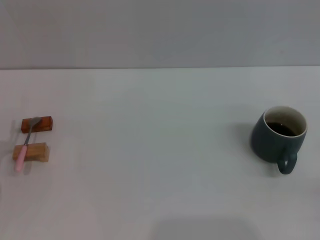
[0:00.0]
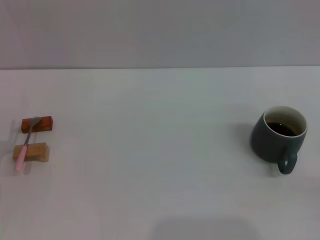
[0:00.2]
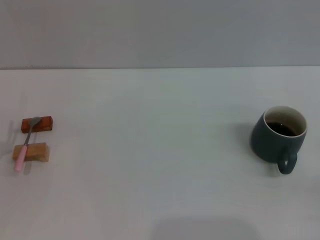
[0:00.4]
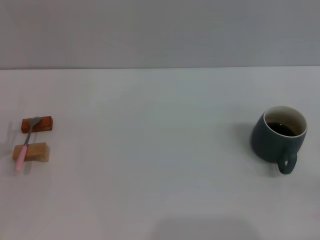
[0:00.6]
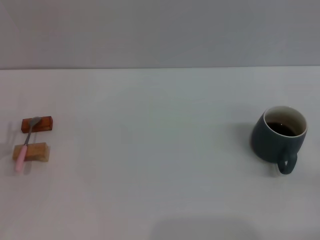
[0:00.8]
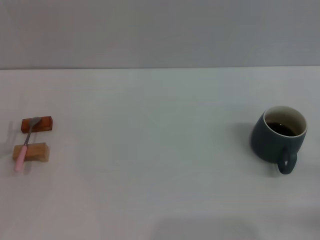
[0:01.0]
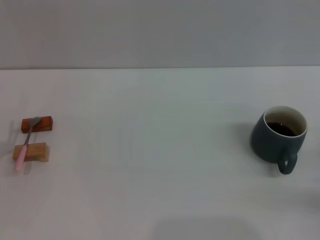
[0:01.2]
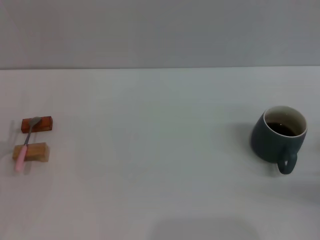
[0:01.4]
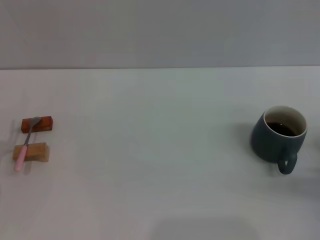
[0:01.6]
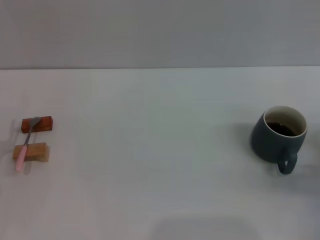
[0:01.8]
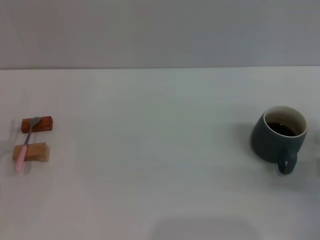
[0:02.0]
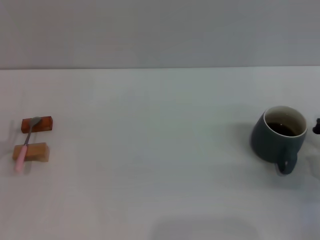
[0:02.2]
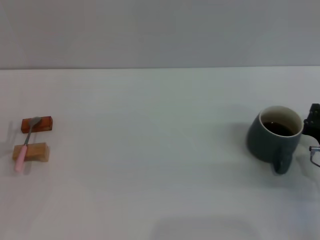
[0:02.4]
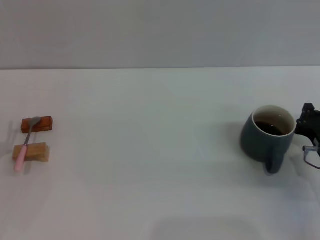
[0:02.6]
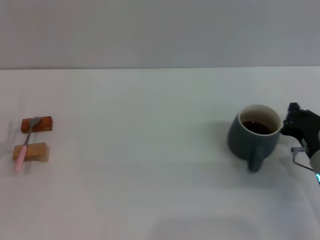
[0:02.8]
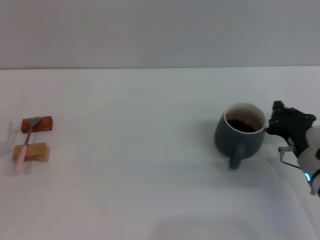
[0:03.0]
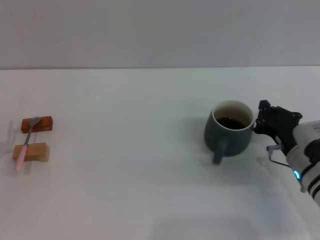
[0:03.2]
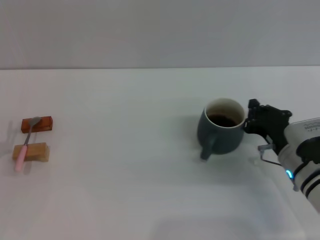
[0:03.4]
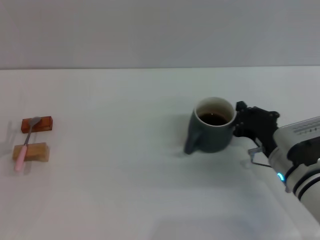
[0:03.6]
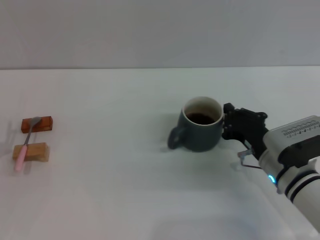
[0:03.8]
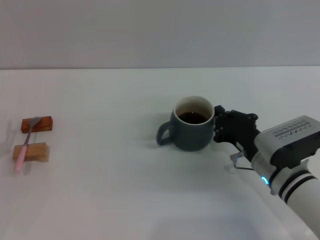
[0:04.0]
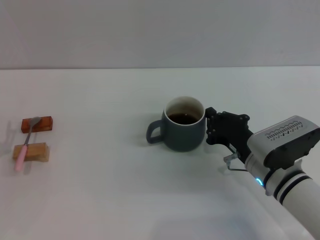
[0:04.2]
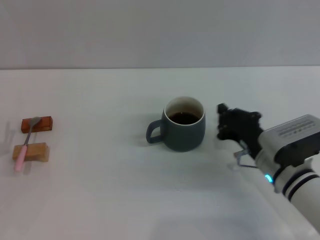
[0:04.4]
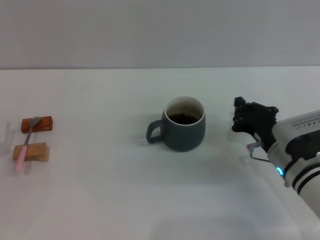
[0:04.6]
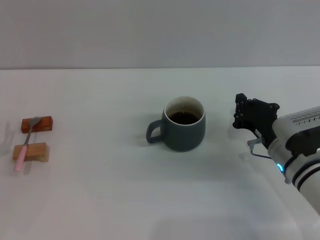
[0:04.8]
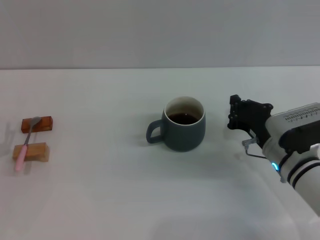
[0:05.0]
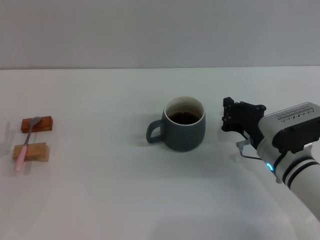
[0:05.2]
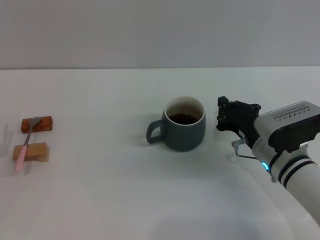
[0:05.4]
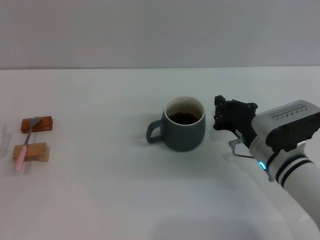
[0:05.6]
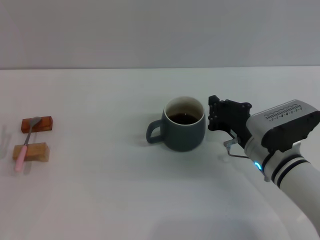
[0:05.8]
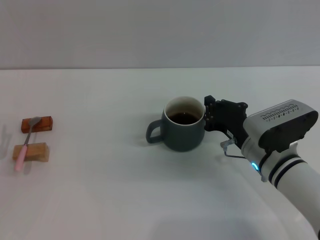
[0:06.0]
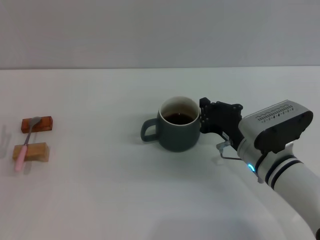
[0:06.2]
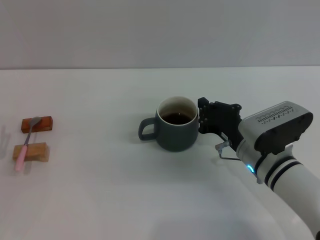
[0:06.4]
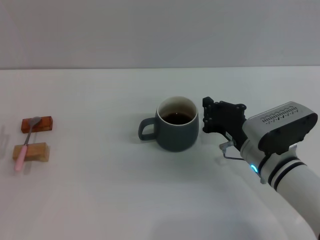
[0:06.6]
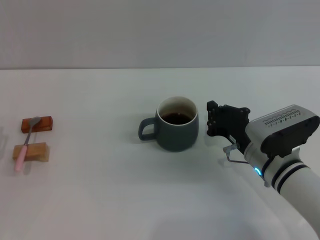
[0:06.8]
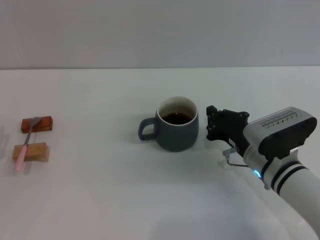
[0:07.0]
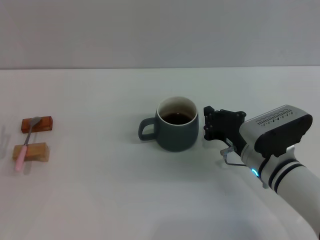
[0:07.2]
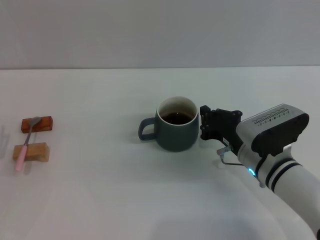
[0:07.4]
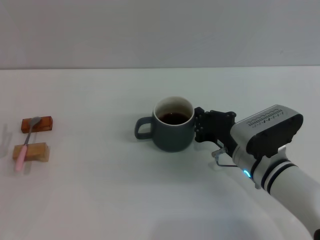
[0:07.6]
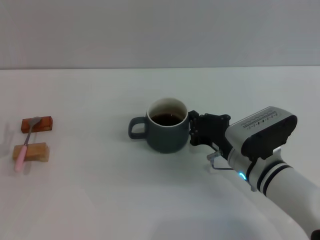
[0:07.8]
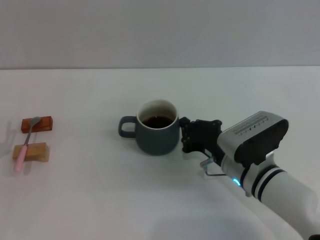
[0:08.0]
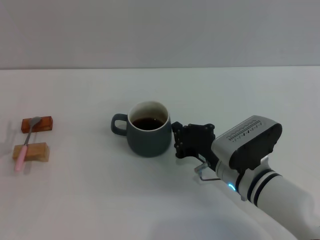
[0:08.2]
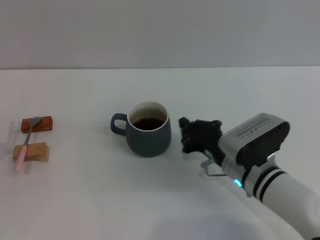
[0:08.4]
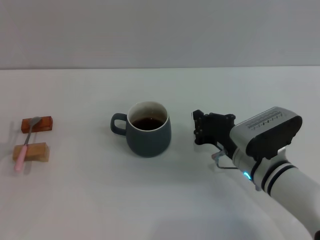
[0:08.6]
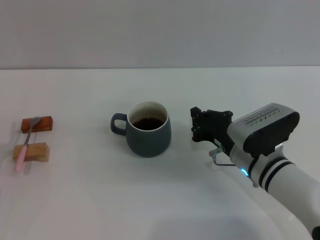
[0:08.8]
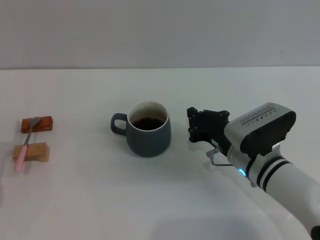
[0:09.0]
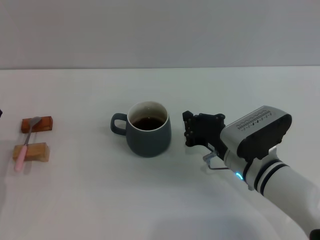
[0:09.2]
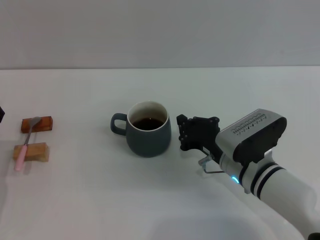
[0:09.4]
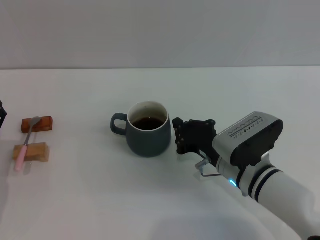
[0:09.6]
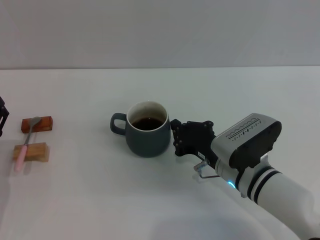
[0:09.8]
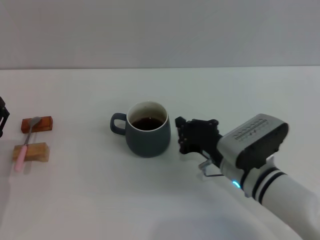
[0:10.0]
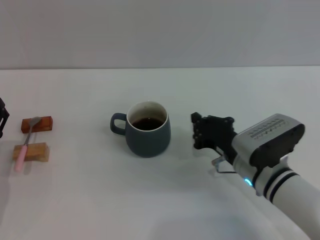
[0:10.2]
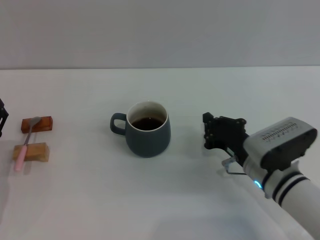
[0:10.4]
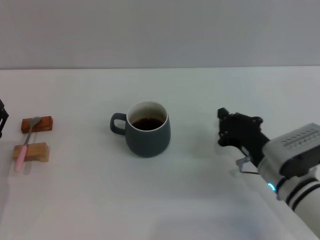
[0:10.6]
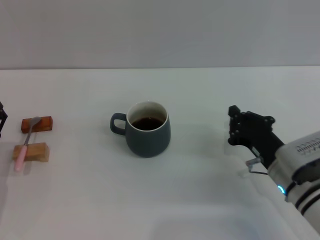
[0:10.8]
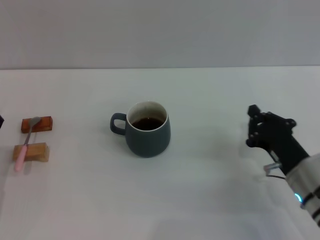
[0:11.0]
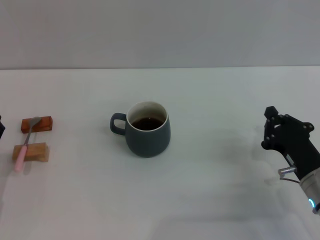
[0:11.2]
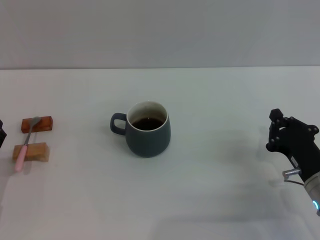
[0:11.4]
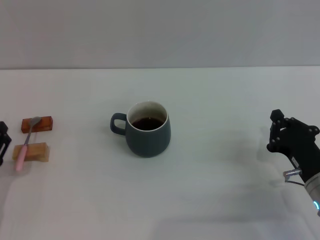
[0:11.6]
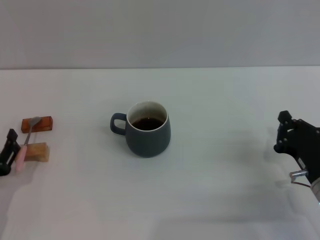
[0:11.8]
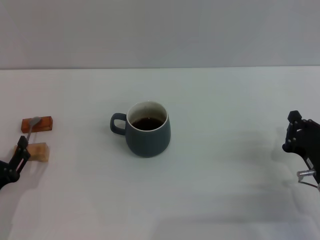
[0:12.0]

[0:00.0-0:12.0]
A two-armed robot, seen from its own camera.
Task of the whole recording: Move the grey cup to the center, lift the pink spoon, stir it three times in the cup, and put the spoon into the cup.
Step, 0:00.0 to 0:10.2: Move the cup with coffee to the center of view with the right gripper.
0:00.0 to 0:01.6: The right gripper moves forward, approximately 10 cm.
0:01.6 to 0:03.0: The right gripper is displaced to the left by approximately 10 cm.
0:03.0 to 0:04.4: The right gripper goes about 5 cm to the left.
0:04.4 to 0:10.4: The grippers make only small movements.
0:10.4 to 0:12.0: The left gripper is displaced backward by some 5 cm, while the right gripper shifts some 10 cm to the right.

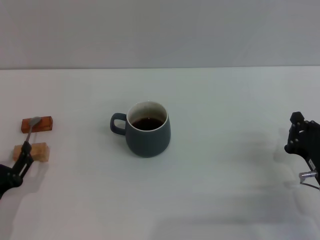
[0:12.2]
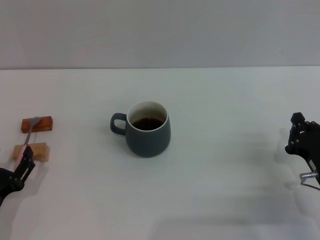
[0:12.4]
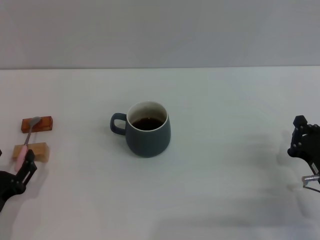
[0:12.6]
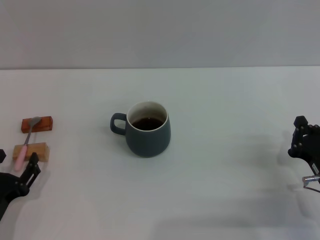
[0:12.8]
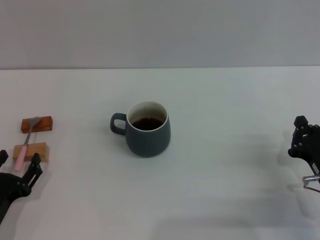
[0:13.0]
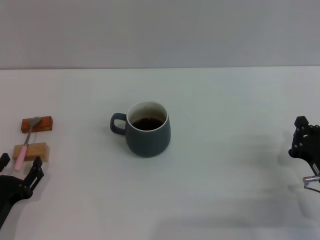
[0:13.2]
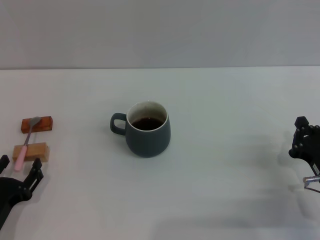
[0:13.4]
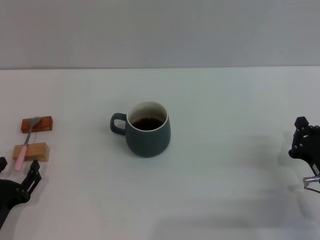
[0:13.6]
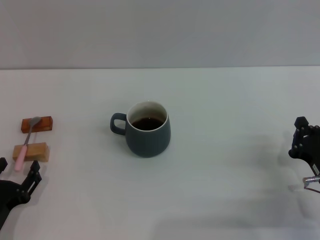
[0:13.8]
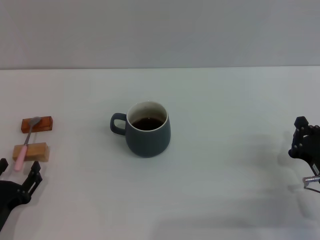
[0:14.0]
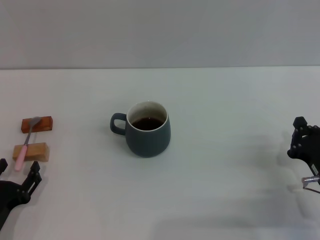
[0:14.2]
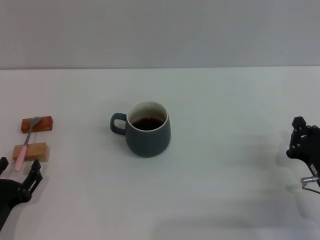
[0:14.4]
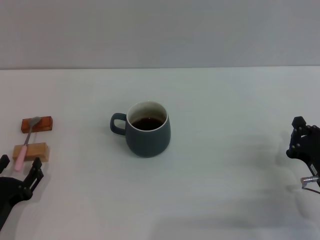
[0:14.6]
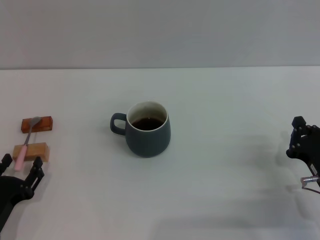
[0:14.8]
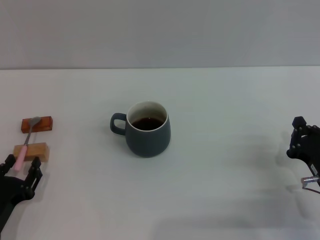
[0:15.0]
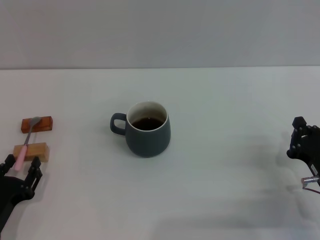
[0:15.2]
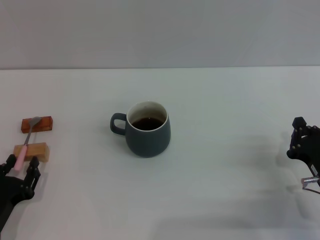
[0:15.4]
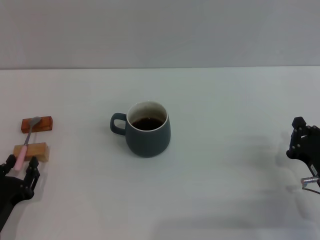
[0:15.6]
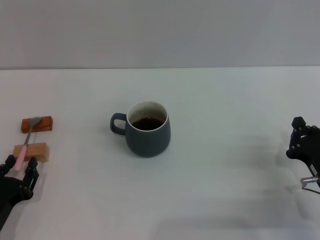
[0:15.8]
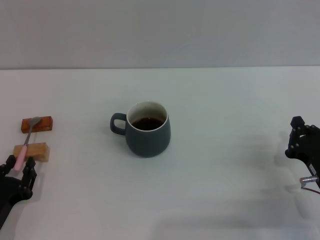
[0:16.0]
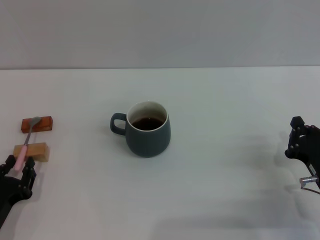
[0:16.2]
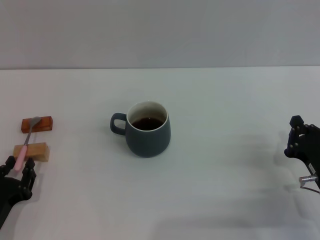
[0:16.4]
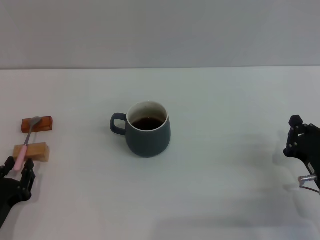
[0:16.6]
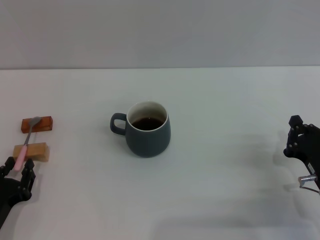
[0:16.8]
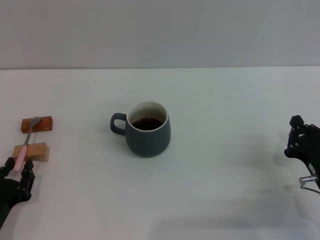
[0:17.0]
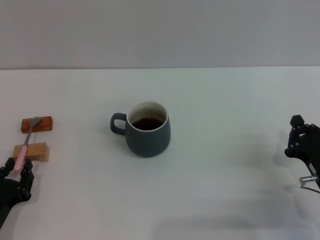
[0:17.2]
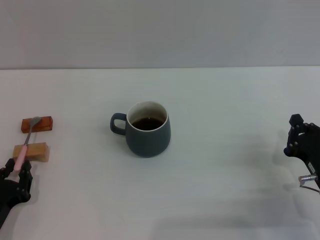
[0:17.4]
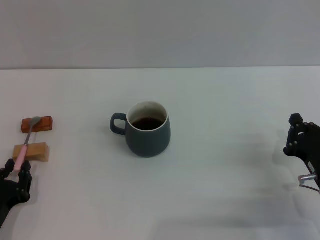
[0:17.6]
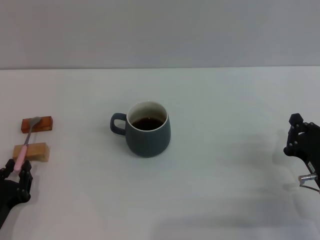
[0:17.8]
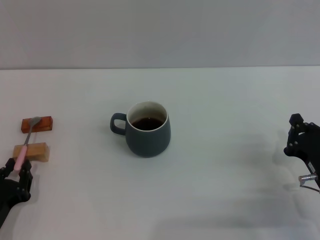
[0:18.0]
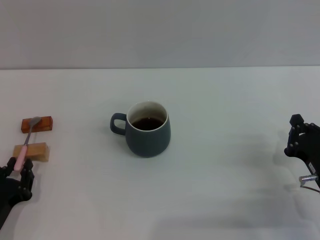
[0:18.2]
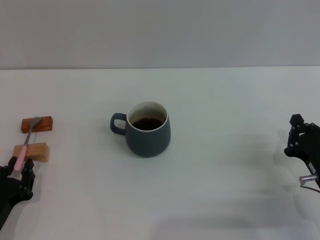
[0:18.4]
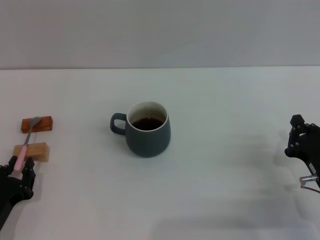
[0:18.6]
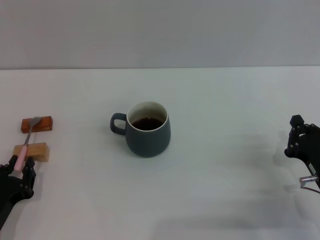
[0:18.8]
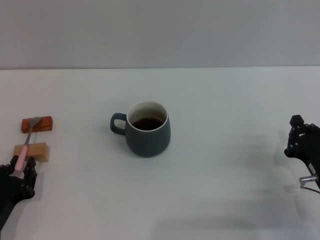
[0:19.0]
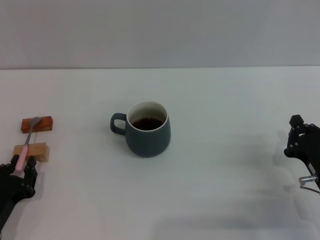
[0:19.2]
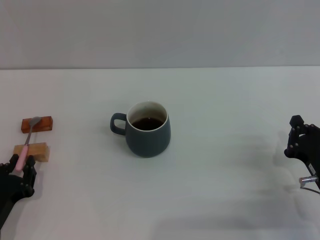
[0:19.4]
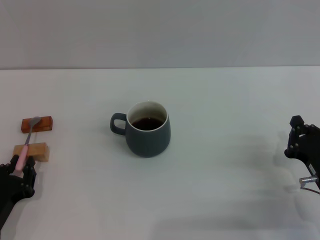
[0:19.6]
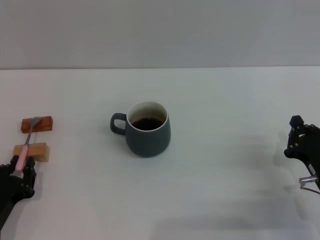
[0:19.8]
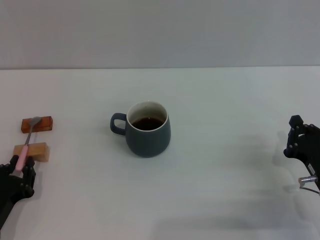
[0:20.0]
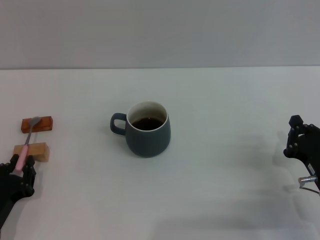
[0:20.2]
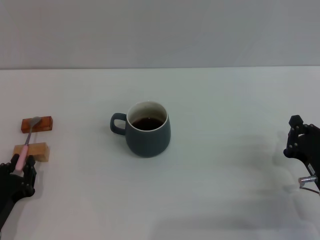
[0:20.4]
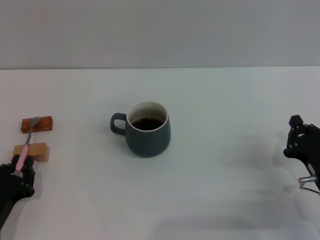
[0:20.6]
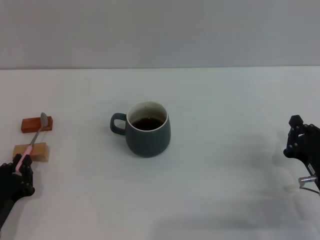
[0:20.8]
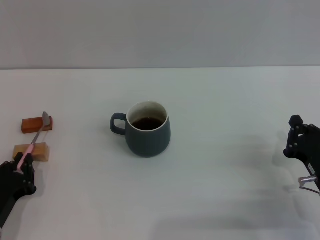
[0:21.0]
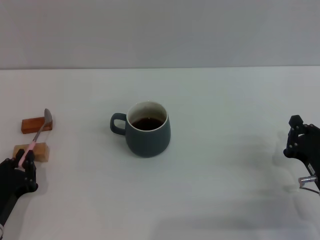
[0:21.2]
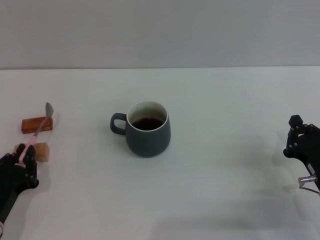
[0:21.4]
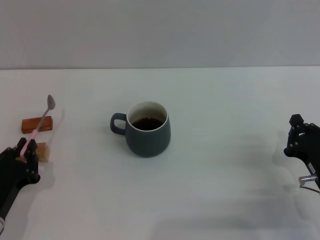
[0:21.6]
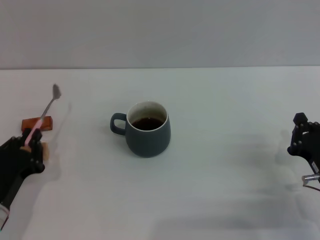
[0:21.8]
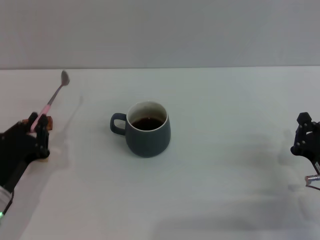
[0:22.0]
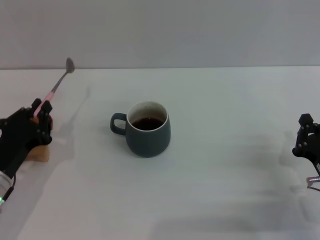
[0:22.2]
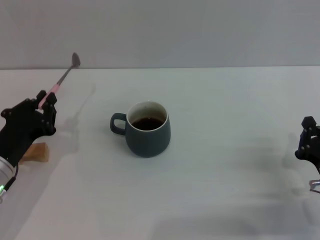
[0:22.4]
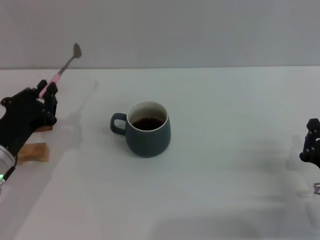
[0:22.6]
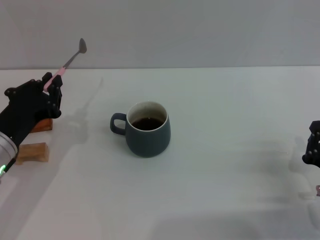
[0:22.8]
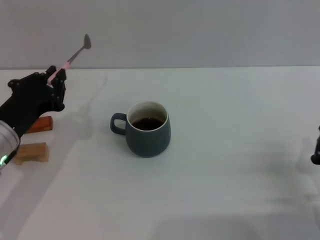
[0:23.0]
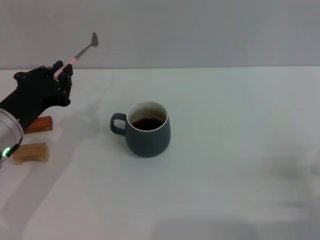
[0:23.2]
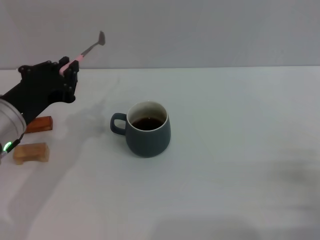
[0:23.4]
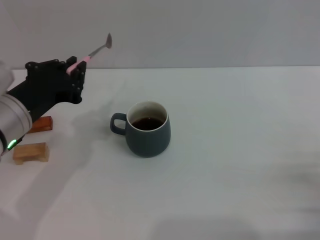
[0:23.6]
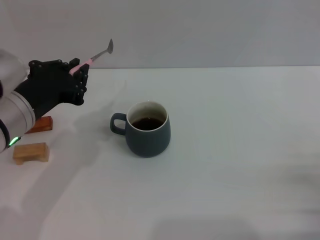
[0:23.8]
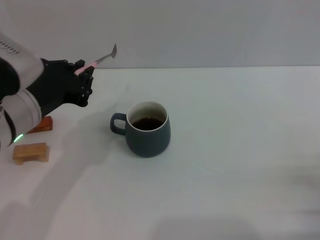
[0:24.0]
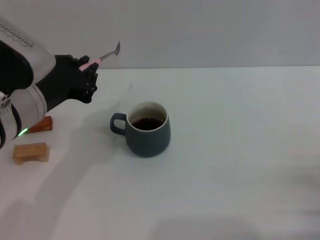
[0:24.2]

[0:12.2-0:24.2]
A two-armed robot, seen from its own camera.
Task of the whole recording: Move the grey cup to the center, lift the pink spoon, stir it three times in the cup, and put the spoon into the cup.
Step, 0:12.2 to 0:22.2: Pick up the spoon with the left gripper.
0:12.2 to 0:13.8: The grippers stay close to where they were, moving slightly.
0:13.8 to 0:19.8: The two grippers keep their place.
0:19.8 to 0:21.2: Both grippers stay put.
0:21.2 to 0:22.6: The left gripper heads upward and forward, covering some 10 cm.
0:22.6 to 0:24.2: The right gripper changes place by roughly 5 cm. Meanwhile the left gripper is displaced upward and to the right by some 15 cm.
